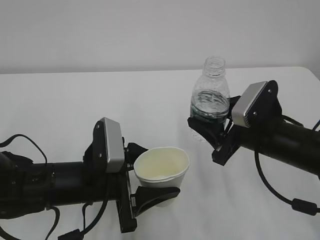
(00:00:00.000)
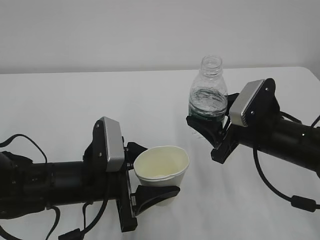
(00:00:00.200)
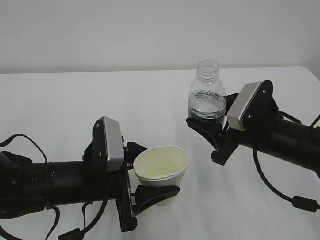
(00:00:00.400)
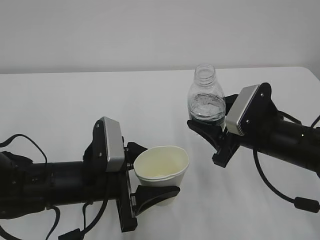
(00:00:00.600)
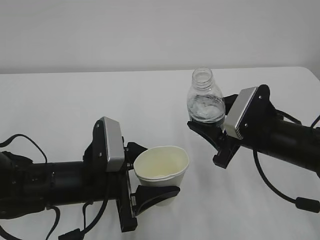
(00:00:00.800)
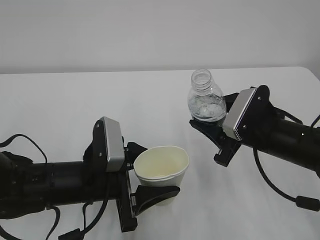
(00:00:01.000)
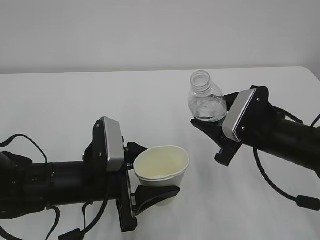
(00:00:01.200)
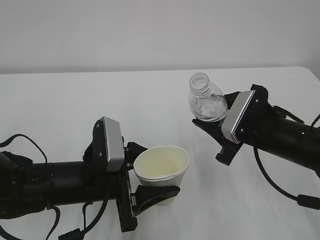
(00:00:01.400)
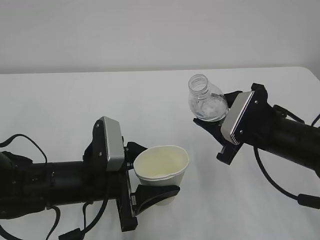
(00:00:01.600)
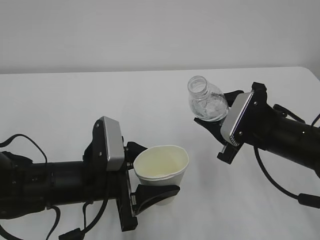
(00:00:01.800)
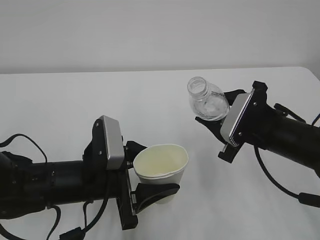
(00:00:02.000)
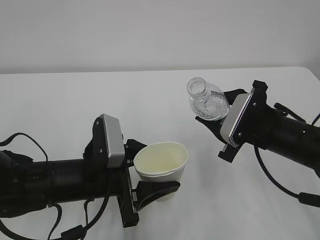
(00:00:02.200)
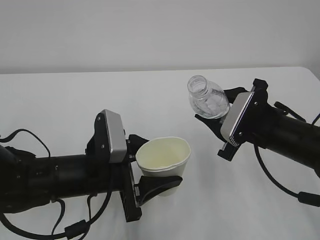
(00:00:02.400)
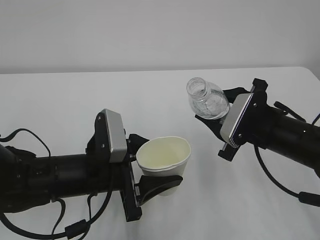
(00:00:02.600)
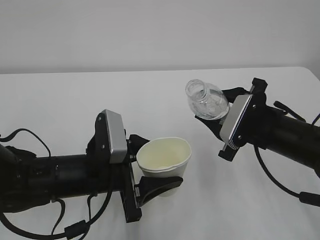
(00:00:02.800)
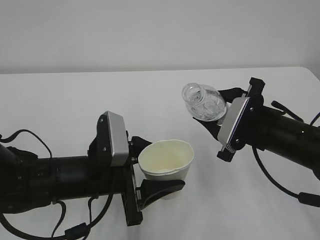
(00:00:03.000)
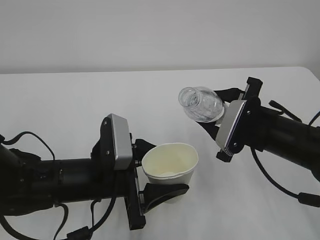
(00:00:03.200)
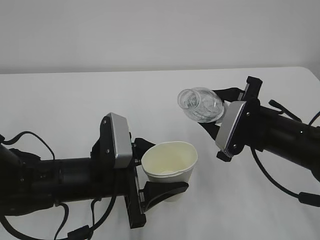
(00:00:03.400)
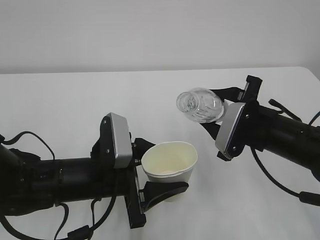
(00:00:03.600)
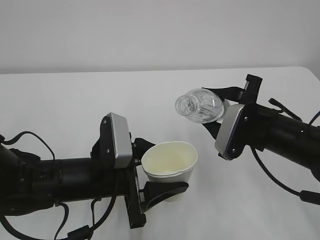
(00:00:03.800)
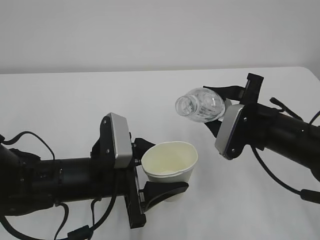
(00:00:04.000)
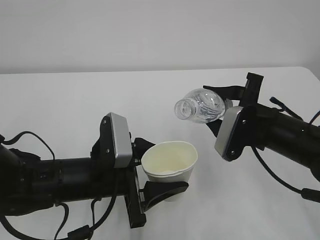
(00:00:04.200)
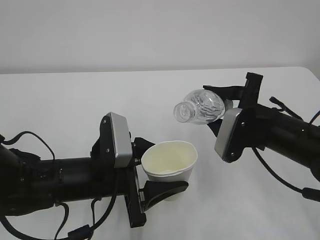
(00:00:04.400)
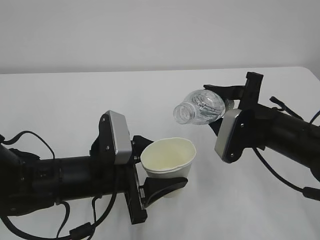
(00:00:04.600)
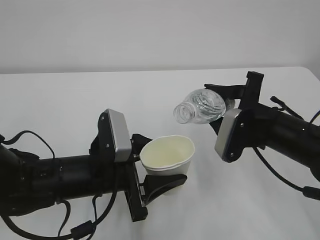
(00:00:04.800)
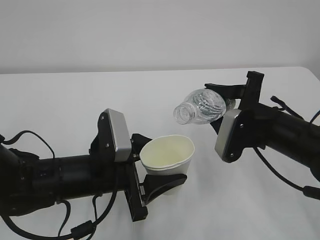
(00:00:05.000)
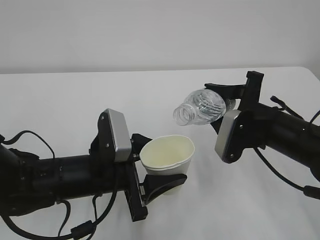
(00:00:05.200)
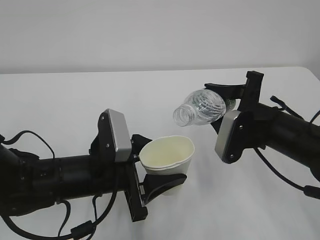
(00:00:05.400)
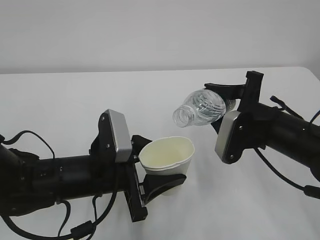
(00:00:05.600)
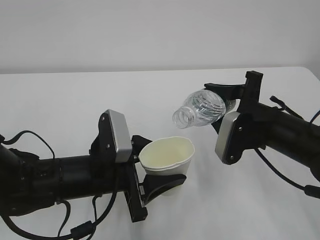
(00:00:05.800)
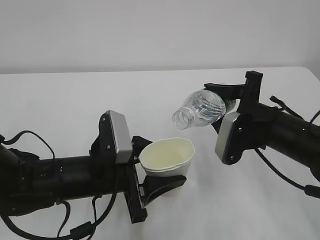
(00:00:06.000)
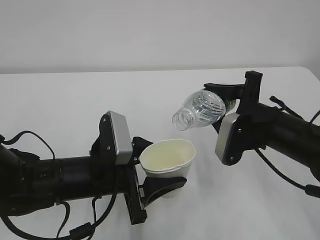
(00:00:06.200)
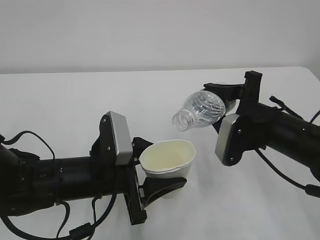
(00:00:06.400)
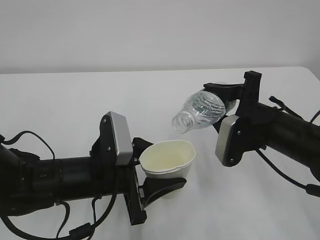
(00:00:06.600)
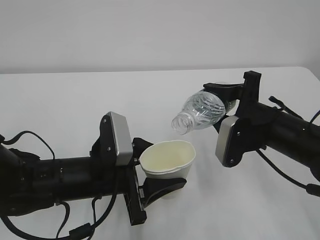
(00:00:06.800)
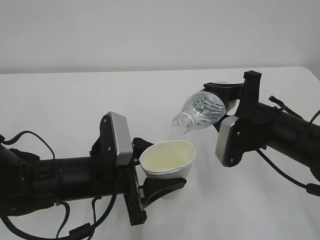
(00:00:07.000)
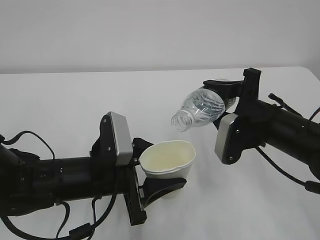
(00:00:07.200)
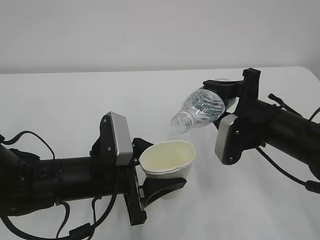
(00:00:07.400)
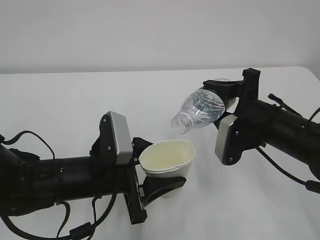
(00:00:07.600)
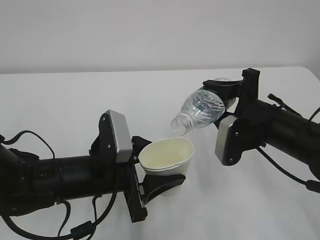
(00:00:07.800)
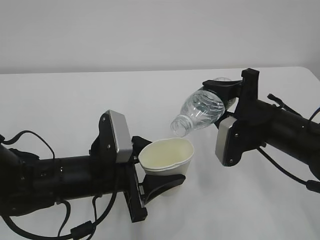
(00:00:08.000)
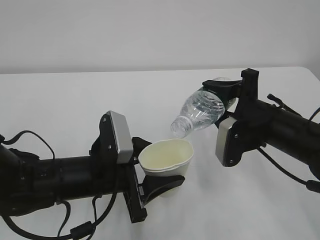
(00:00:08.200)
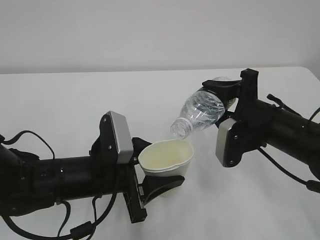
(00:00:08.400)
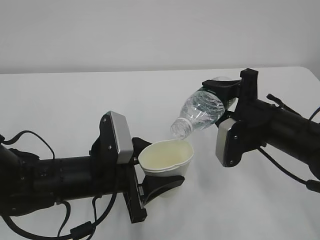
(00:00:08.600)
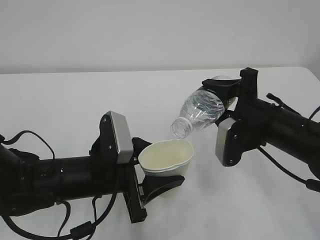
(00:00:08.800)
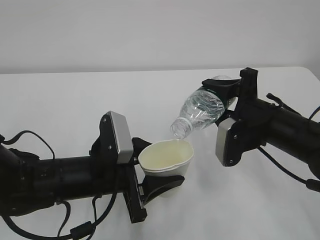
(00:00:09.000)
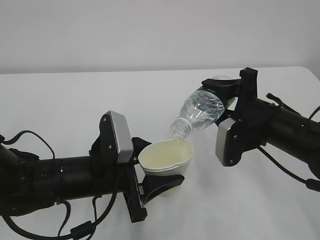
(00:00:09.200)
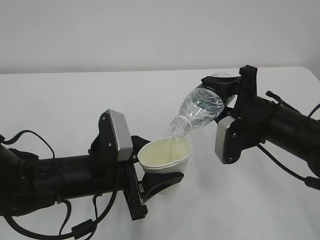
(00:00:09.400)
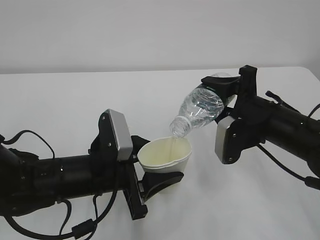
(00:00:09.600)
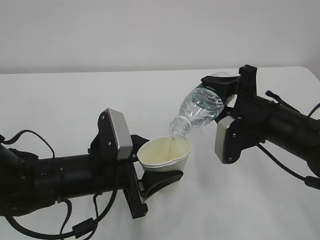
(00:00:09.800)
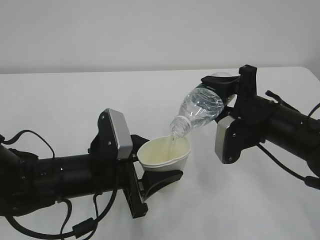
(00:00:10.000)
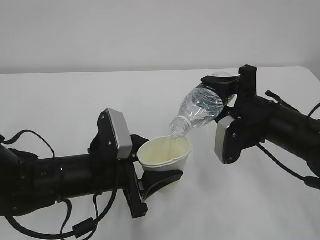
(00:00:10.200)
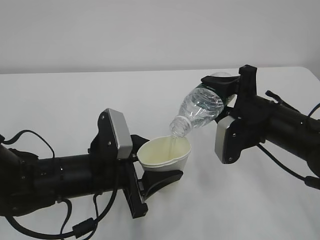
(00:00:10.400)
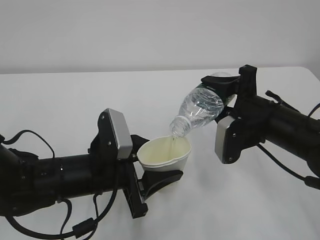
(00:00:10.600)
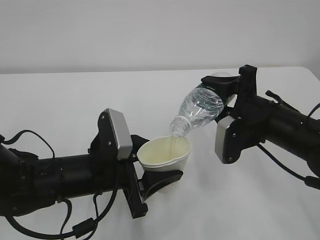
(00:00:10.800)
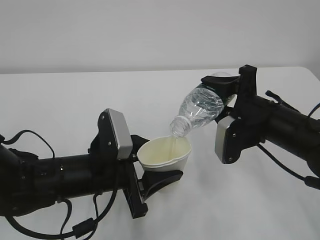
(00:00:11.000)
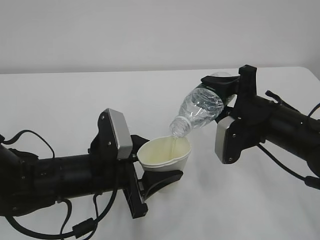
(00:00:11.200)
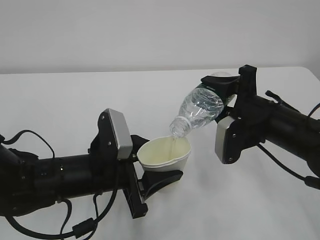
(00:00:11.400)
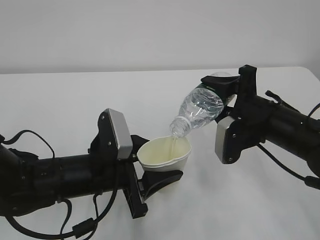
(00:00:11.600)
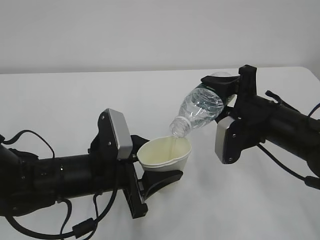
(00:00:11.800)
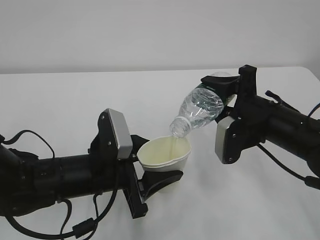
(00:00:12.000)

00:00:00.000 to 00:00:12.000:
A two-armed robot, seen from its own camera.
00:00:01.600 to 00:00:03.000: There are only small adjustments of the grippers.
00:00:03.000 to 00:00:04.400: There are only small adjustments of the grippers.
00:00:04.400 to 00:00:07.600: The grippers stay close to where they were, moving slightly.
00:00:07.600 to 00:00:09.000: There are only small adjustments of the grippers.
00:00:09.000 to 00:00:12.000: Both grippers stay about where they are.

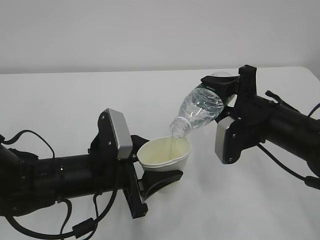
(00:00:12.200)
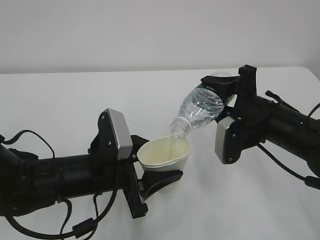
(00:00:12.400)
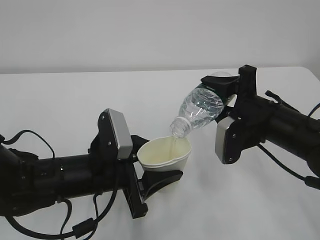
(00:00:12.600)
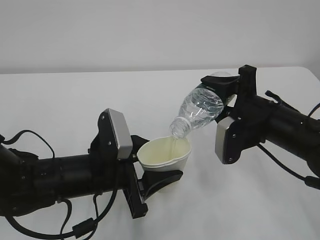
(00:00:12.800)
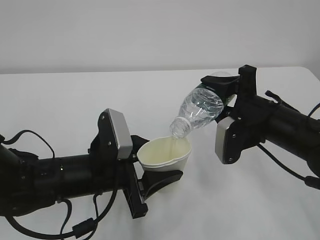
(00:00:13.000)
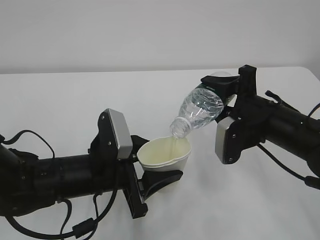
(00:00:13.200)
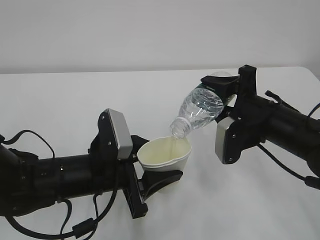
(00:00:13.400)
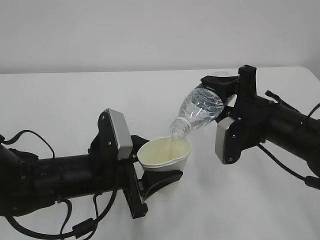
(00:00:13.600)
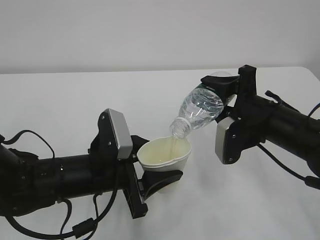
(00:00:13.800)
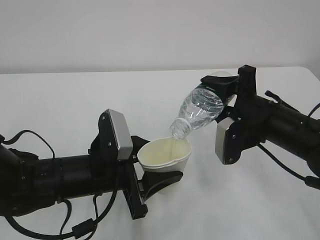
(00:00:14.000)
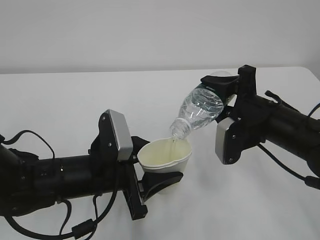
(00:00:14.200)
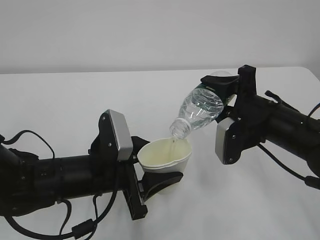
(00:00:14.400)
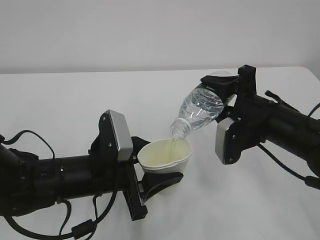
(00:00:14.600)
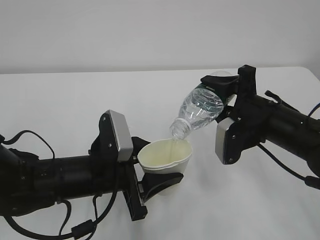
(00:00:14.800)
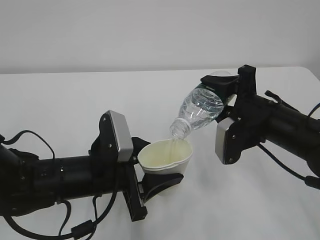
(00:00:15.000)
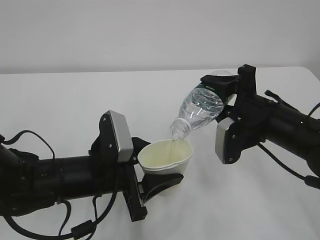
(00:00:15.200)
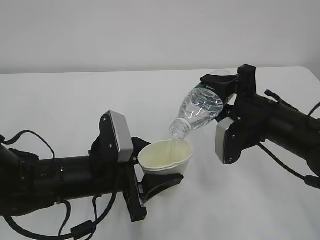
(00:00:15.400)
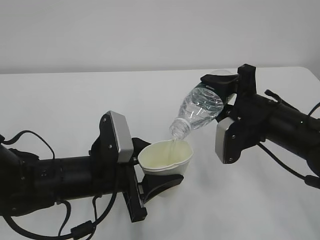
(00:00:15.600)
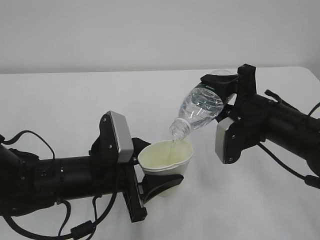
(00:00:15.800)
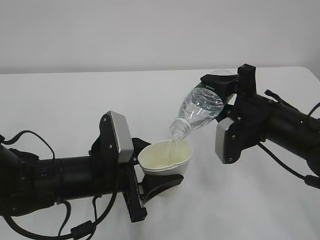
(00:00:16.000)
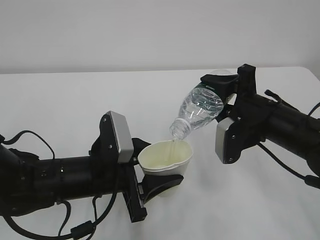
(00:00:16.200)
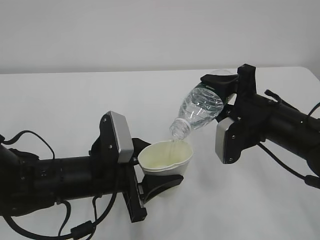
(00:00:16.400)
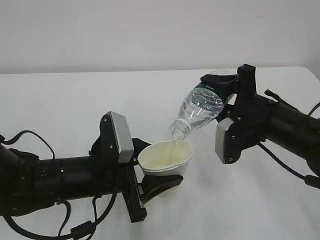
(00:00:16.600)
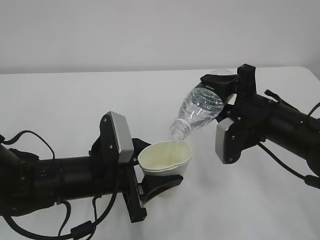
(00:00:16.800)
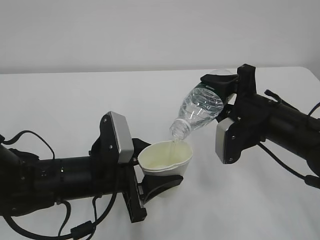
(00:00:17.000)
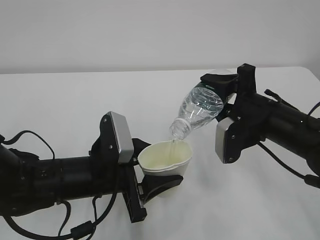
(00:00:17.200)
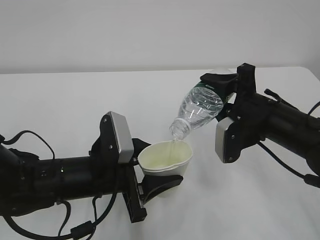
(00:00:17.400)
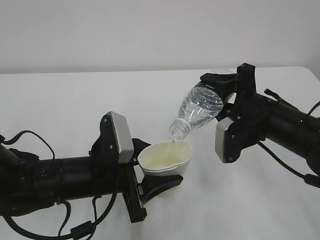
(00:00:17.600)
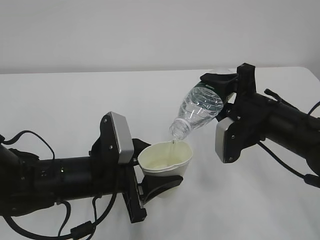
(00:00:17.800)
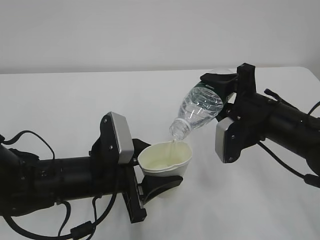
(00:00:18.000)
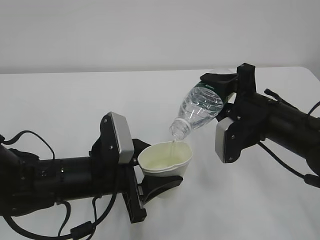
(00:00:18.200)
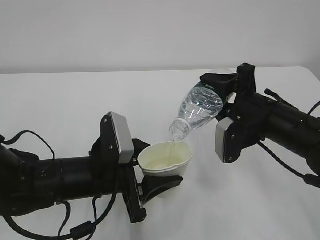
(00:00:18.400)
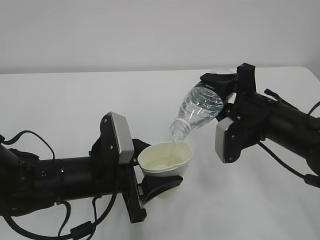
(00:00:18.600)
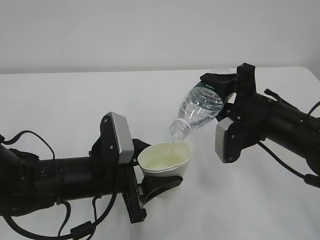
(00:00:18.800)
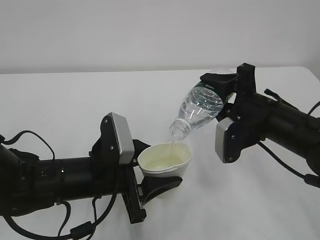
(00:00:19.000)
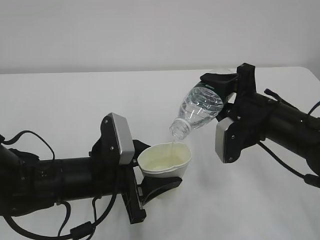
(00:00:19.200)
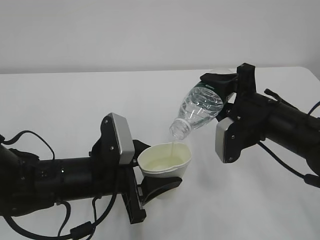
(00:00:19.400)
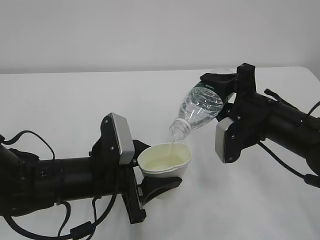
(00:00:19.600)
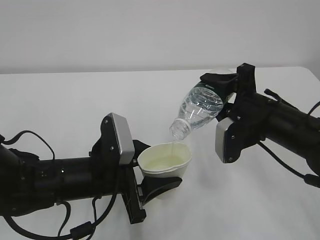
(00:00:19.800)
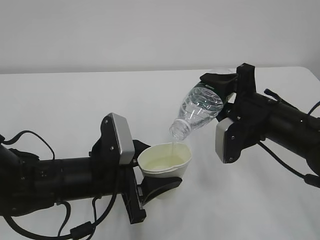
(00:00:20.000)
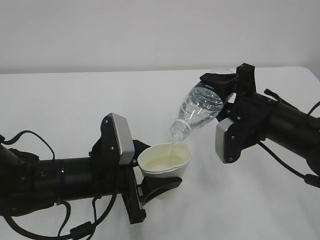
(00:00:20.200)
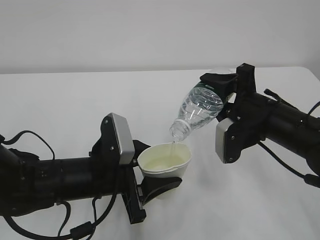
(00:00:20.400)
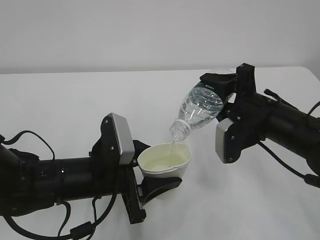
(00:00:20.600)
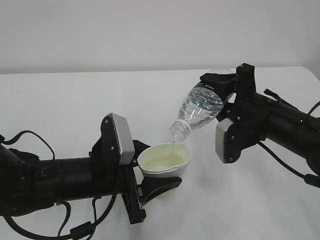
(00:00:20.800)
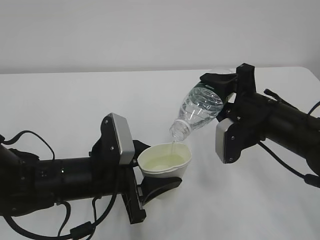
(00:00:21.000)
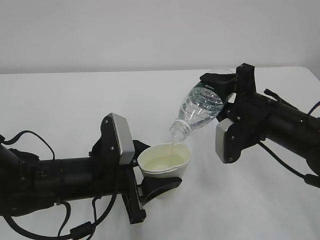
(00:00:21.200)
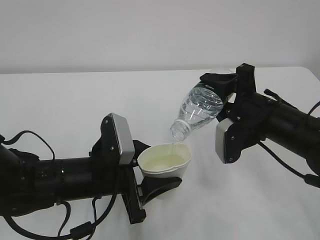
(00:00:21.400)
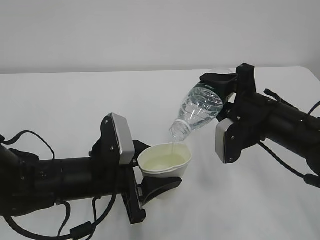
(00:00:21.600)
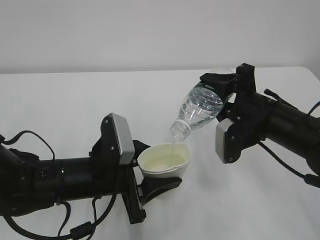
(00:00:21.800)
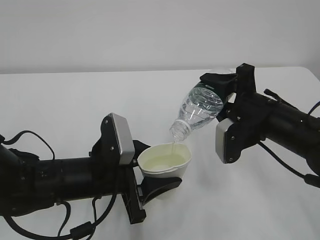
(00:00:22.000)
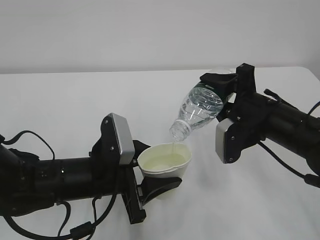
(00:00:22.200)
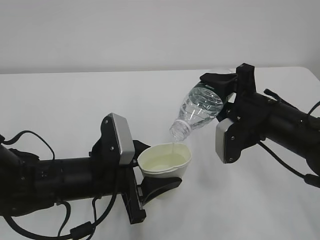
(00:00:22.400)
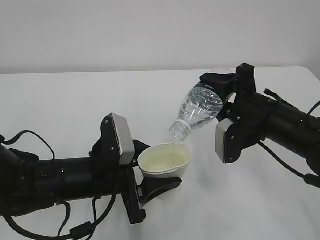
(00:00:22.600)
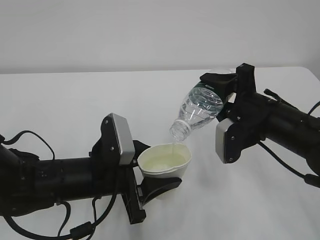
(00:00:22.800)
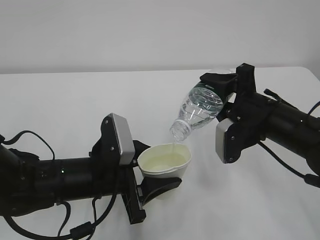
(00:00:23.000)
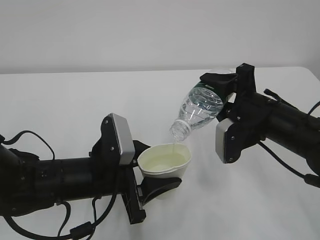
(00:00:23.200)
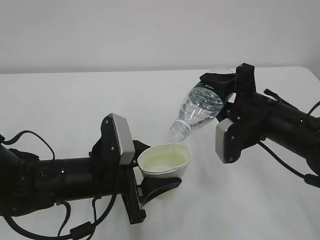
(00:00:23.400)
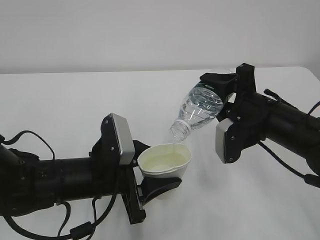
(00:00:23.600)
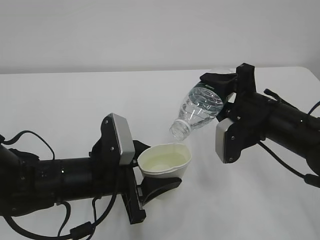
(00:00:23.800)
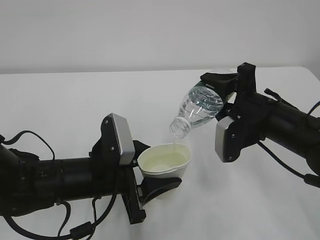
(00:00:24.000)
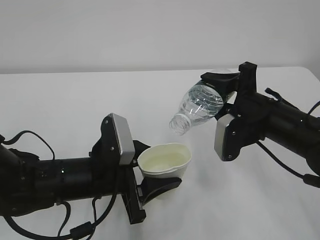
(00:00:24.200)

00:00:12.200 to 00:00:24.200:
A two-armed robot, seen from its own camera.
00:00:12.200 to 00:00:19.800: Neither gripper changes place.
00:00:19.800 to 00:00:22.600: The two grippers keep their place.
00:00:22.600 to 00:00:24.200: The grippers stay close to where they were, moving slightly.
